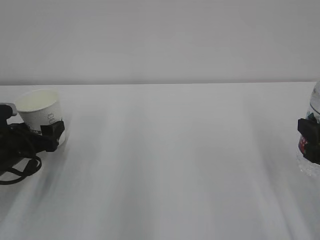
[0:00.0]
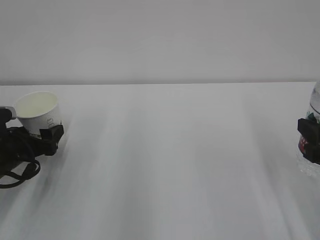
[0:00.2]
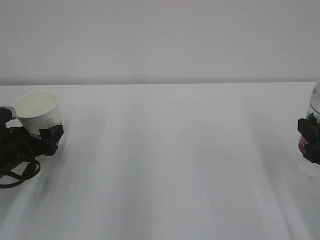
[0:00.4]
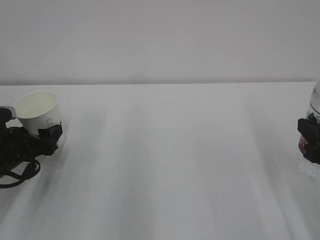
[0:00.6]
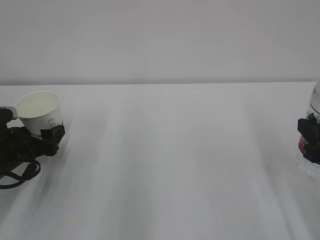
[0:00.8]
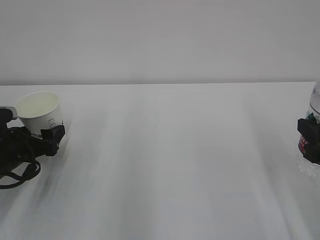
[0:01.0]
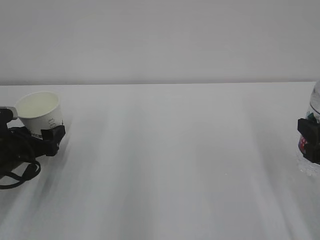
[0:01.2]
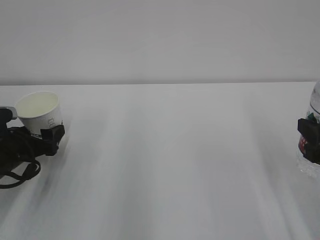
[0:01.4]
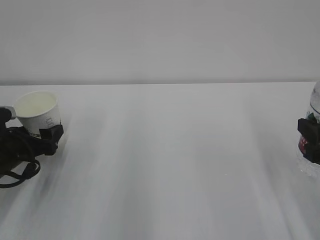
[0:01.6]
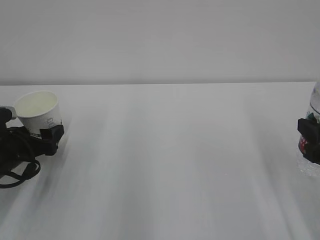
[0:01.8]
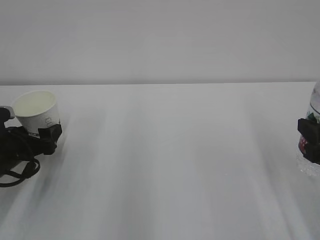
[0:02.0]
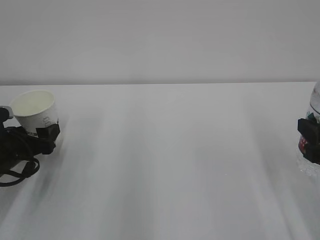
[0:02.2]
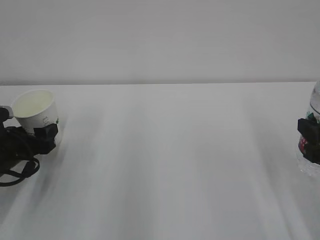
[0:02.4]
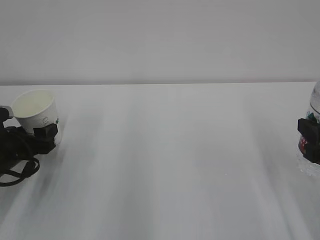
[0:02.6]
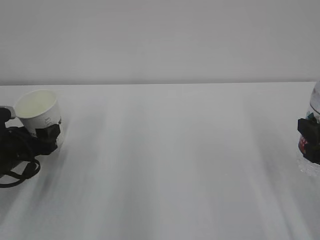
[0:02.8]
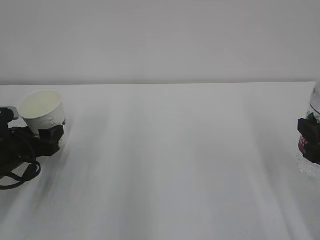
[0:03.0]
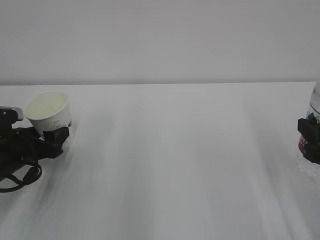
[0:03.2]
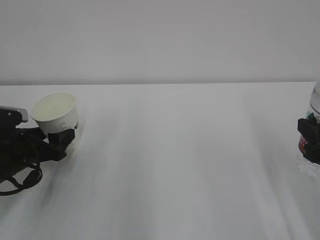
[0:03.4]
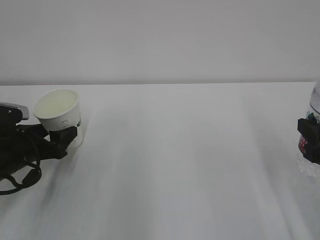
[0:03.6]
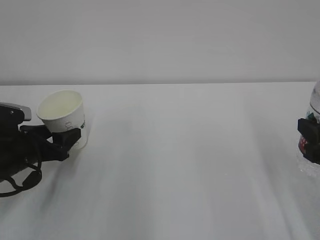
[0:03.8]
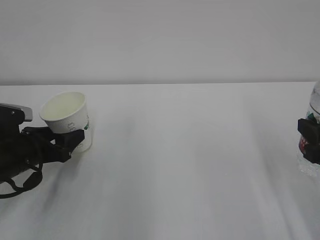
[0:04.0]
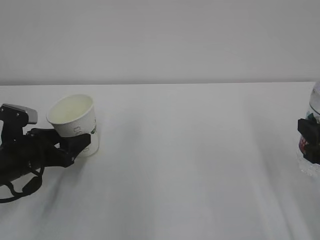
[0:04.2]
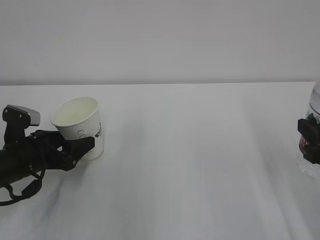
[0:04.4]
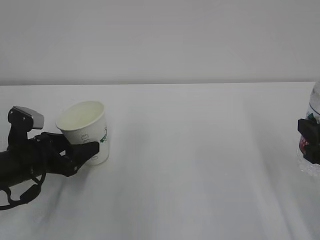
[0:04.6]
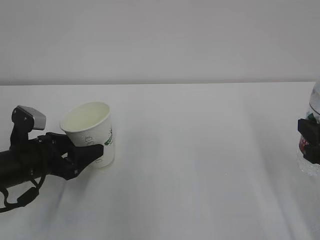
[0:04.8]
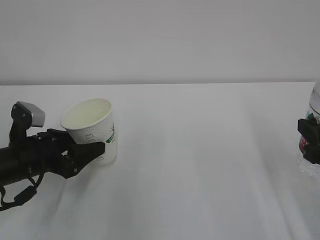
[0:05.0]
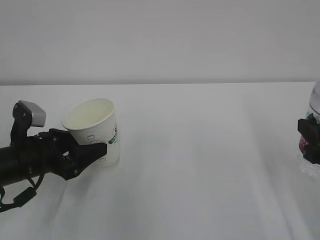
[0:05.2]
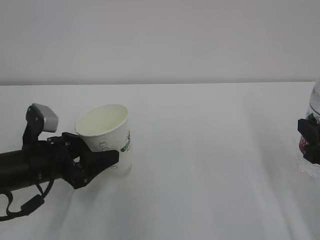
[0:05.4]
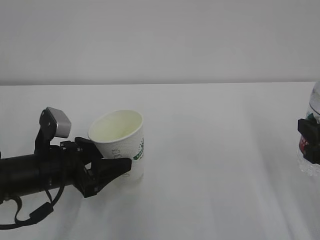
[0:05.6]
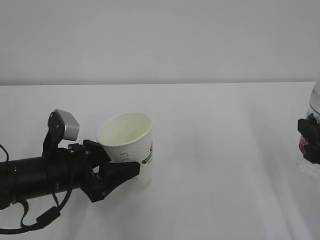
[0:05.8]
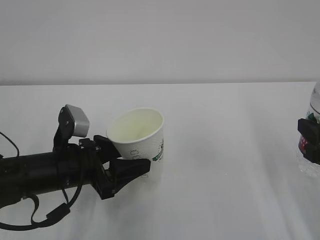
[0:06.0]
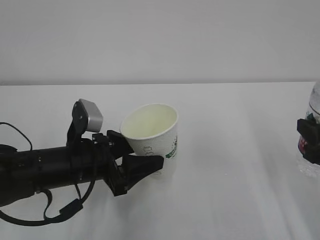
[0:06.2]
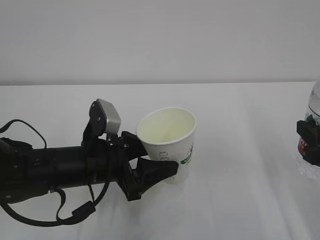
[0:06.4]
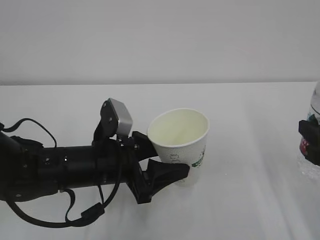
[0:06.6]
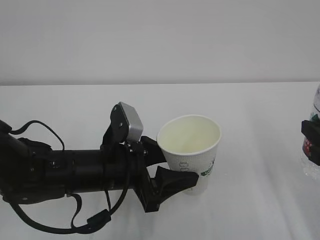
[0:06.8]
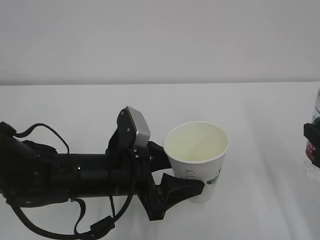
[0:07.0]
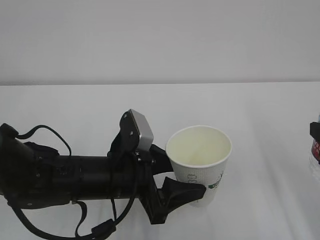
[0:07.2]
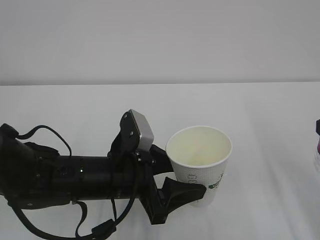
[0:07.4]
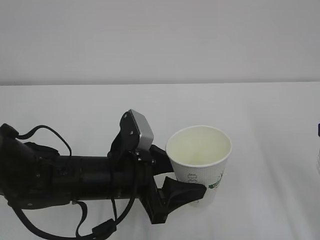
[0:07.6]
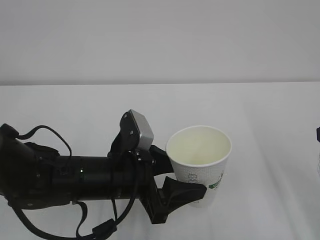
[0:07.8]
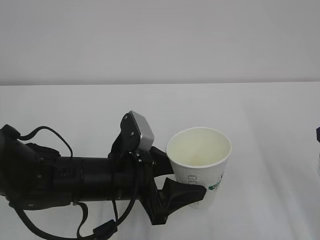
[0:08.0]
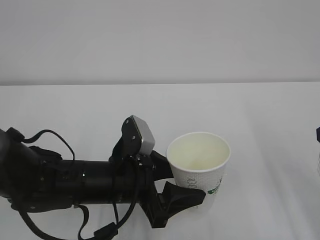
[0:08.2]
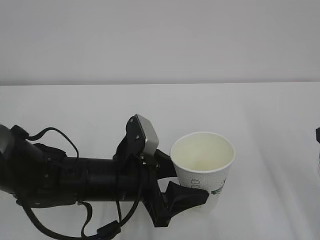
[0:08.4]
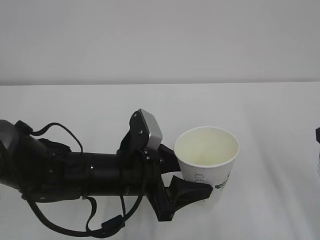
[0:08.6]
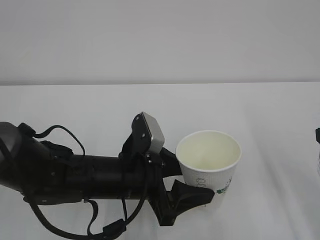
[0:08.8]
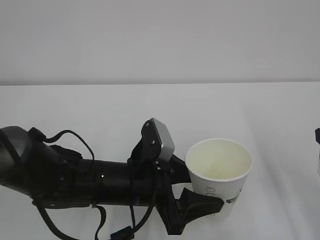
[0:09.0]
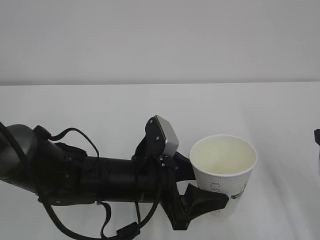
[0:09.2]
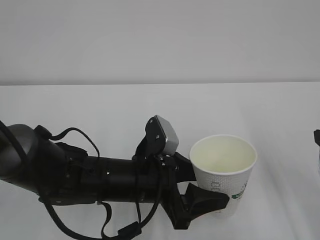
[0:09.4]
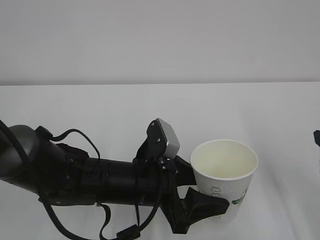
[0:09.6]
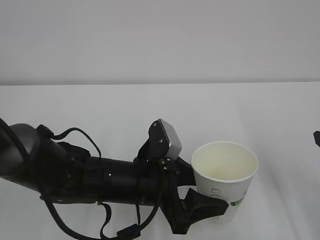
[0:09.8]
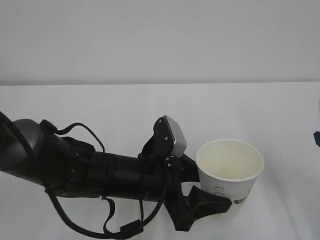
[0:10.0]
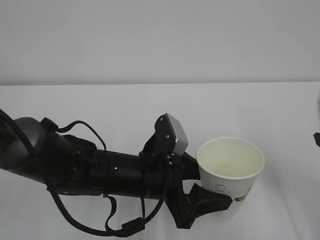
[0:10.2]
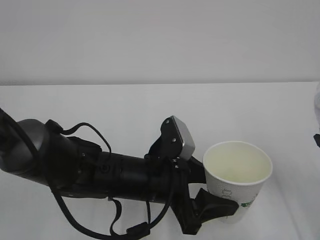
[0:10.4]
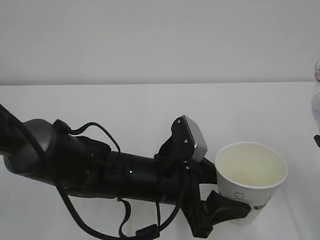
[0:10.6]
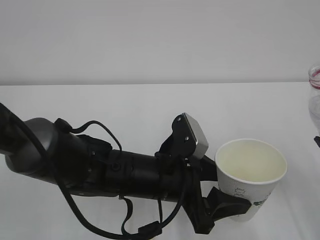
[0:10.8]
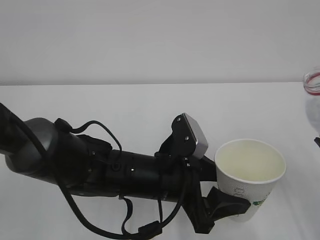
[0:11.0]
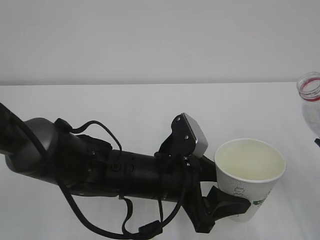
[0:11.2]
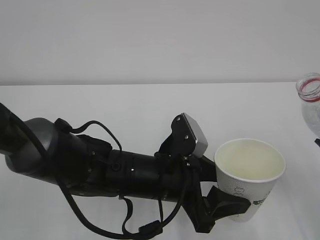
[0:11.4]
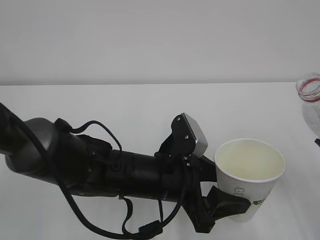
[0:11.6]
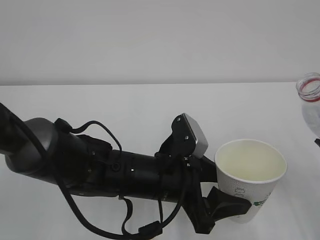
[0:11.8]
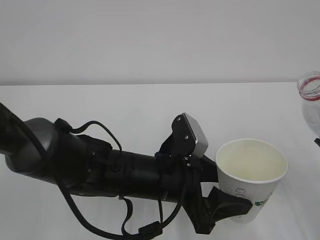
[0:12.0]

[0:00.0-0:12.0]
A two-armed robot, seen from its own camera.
0:00.0 to 0:01.6: Neither gripper changes place.
0:01.6 to 0:03.0: The left gripper closes its fingers.
0:04.4 to 0:06.0: The left gripper shifts about 10 cm to the right.
0:06.0 to 0:07.6: The left gripper travels to the right by some 10 cm.
0:07.6 to 0:09.0: The grippers move only a little.
0:09.0 to 0:10.4: The grippers make only small movements.
0:10.4 to 0:12.0: The grippers make only small movements.

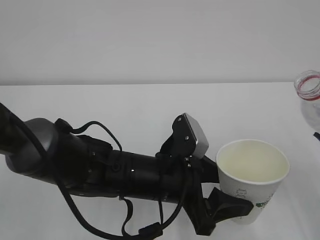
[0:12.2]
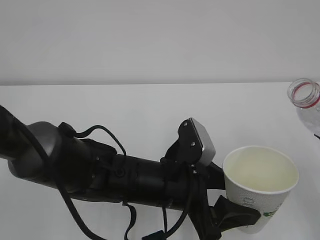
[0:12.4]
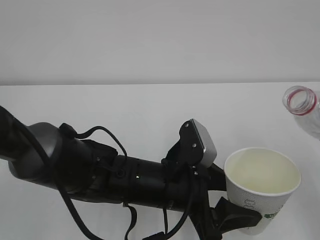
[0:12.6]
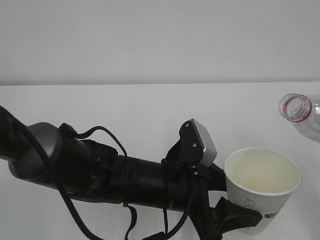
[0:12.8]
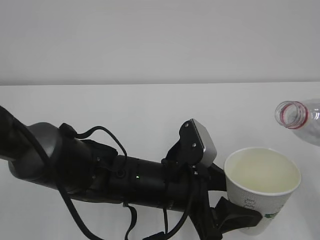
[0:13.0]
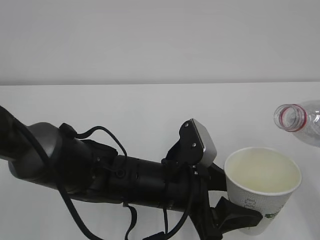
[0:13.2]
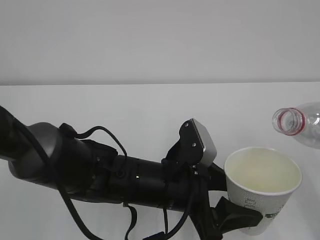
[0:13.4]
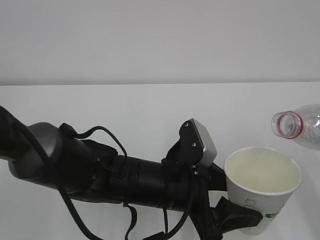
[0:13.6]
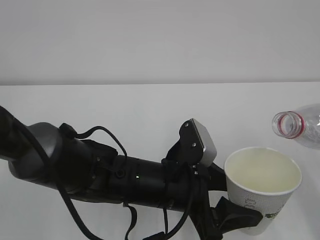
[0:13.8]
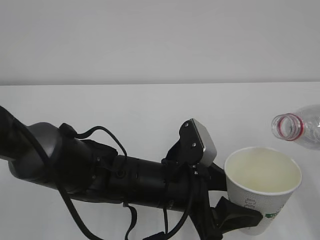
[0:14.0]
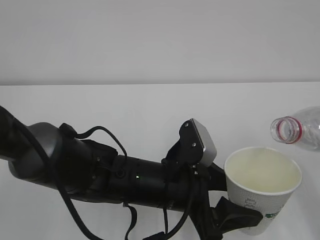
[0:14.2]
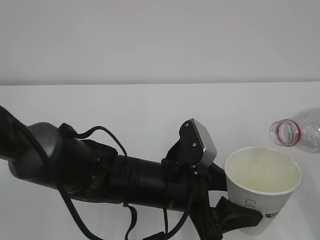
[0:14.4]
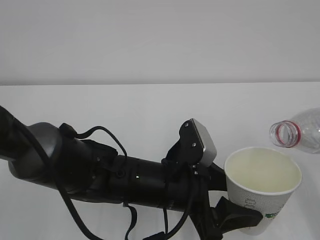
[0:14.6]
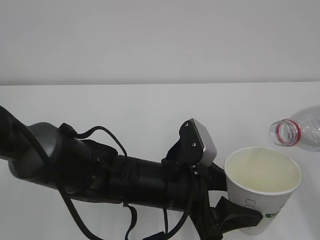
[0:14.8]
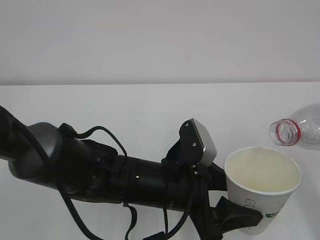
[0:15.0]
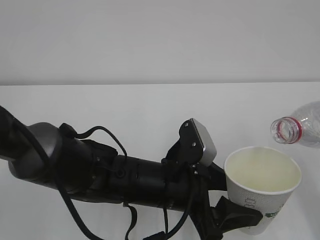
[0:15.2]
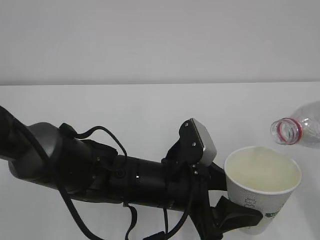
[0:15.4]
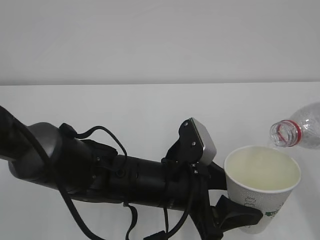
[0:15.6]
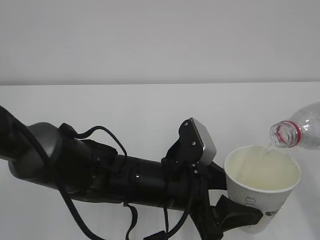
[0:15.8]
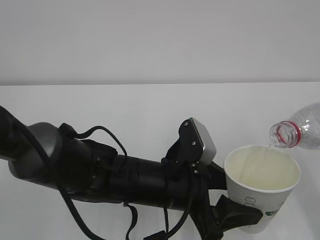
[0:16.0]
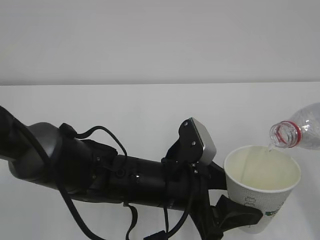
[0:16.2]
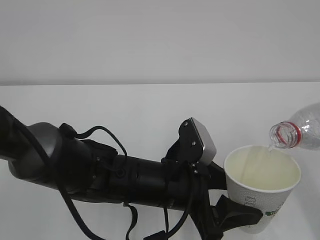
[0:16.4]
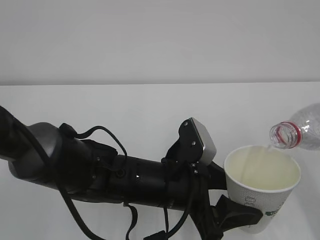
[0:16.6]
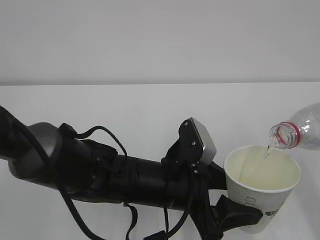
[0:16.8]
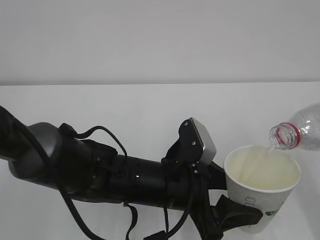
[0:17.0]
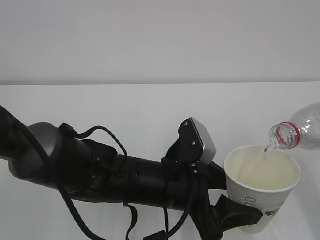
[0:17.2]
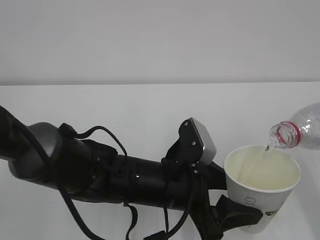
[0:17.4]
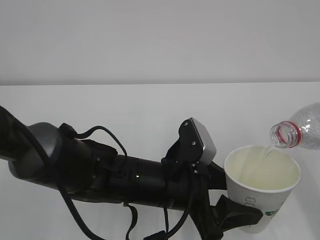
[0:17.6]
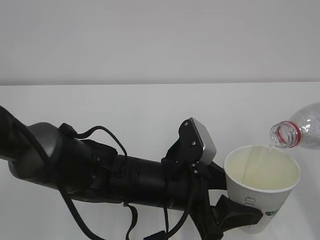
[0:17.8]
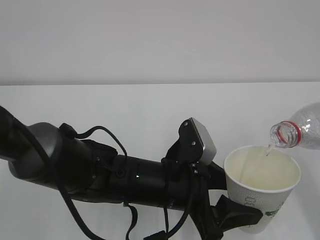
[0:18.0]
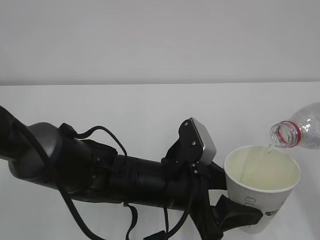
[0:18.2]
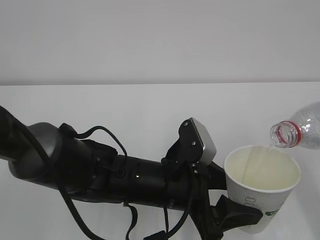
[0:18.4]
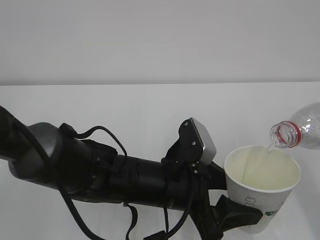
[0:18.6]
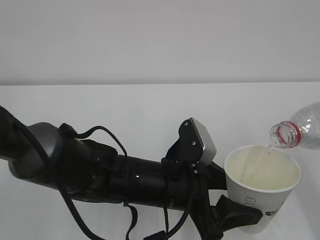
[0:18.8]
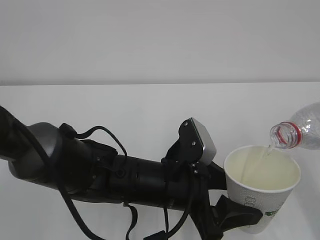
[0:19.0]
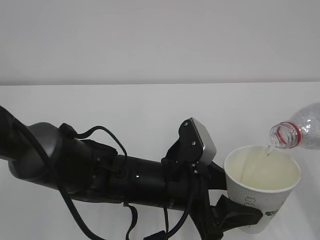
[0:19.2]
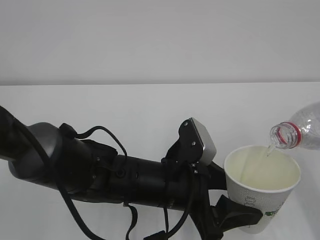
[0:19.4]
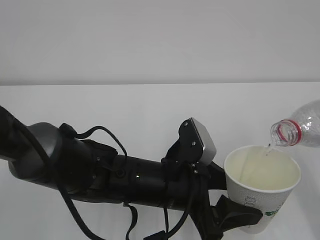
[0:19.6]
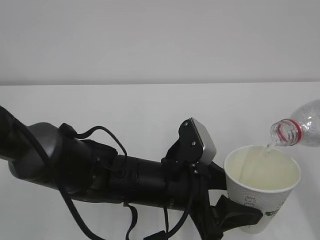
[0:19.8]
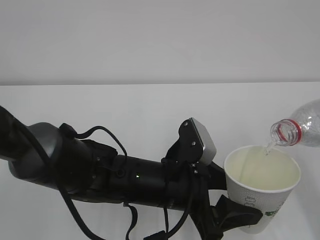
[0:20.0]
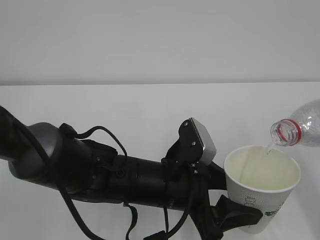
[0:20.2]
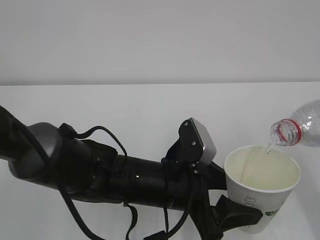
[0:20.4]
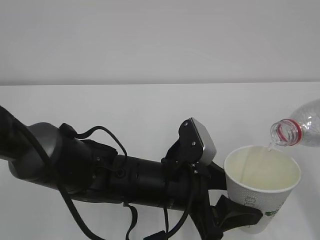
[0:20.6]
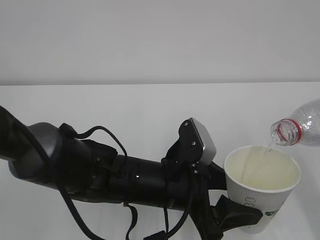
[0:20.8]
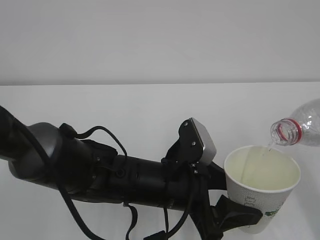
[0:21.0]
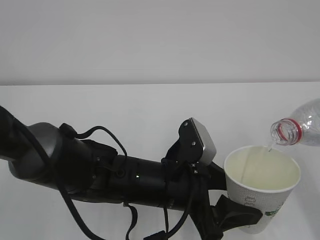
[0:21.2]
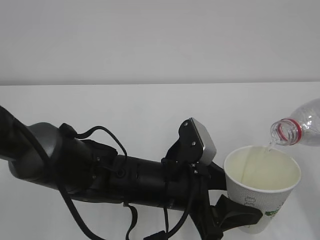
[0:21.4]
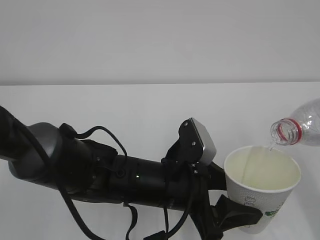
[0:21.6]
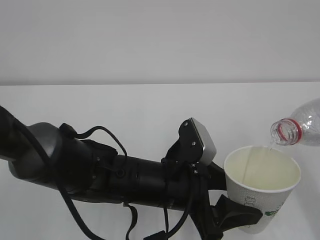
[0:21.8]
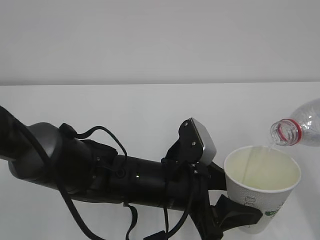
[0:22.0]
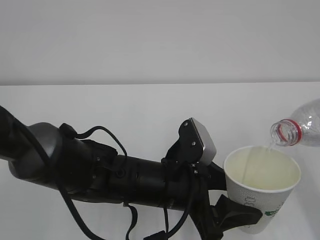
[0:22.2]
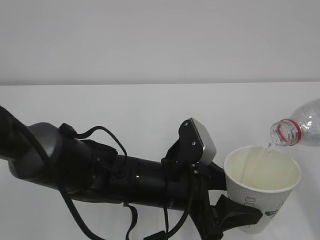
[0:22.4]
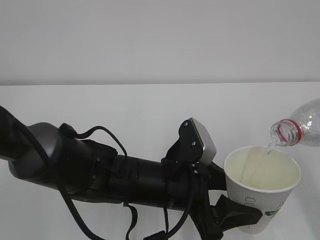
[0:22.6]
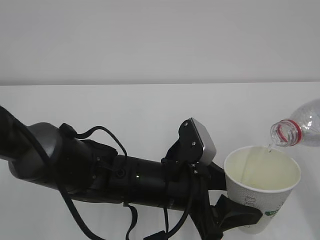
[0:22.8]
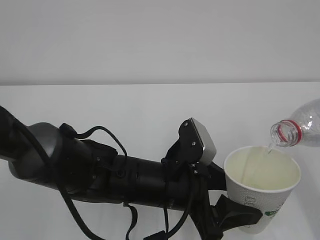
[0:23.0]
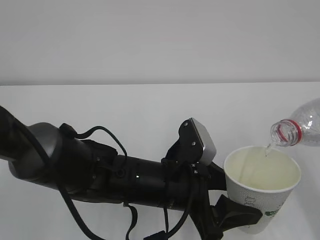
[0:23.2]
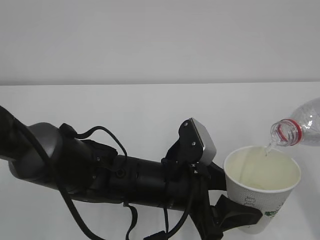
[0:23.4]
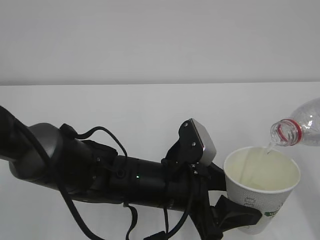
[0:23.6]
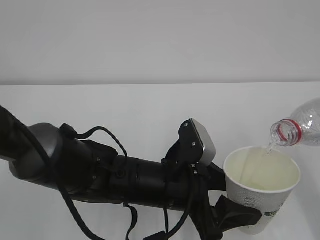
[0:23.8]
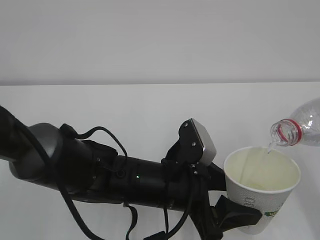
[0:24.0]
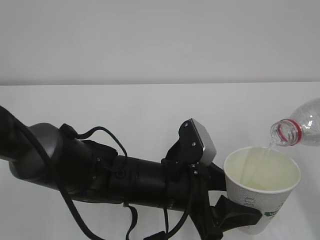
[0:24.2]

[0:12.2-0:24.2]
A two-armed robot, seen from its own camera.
0:15.2 to 0:21.2: Both grippers stay put.
0:21.2 to 0:24.2: The two grippers keep their place.
